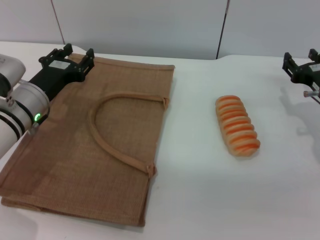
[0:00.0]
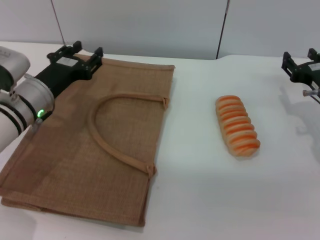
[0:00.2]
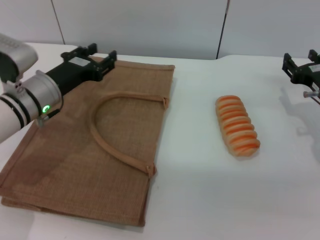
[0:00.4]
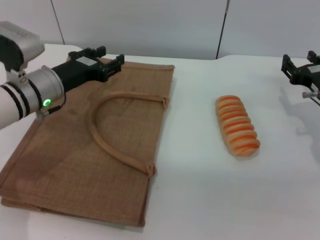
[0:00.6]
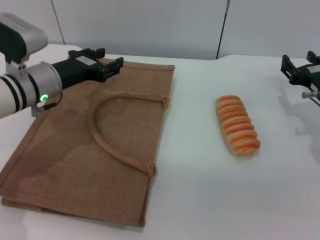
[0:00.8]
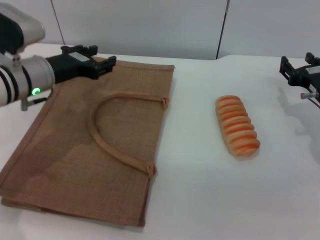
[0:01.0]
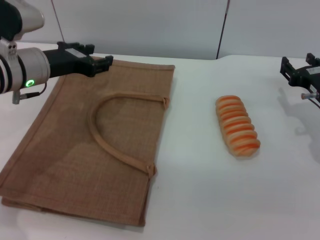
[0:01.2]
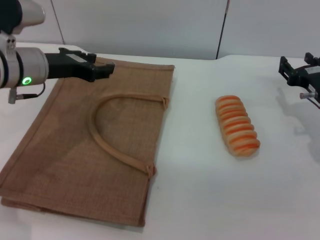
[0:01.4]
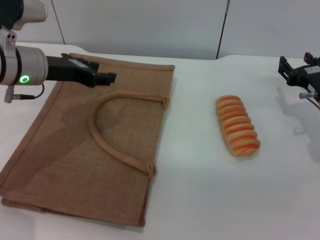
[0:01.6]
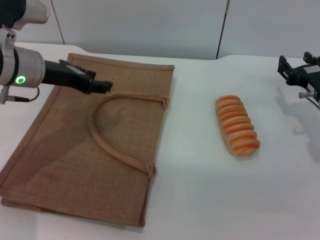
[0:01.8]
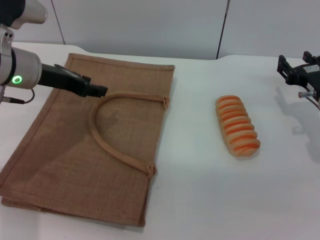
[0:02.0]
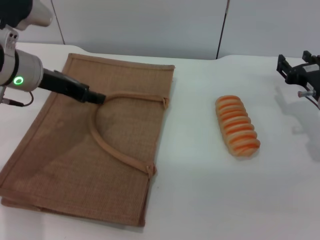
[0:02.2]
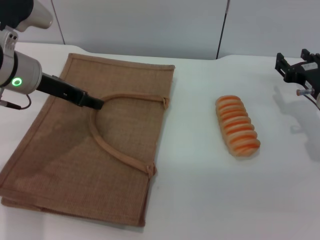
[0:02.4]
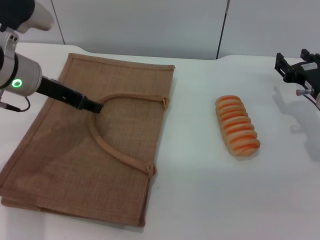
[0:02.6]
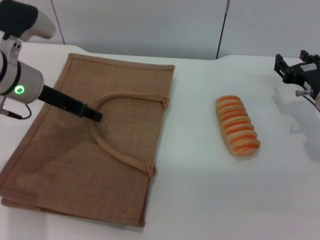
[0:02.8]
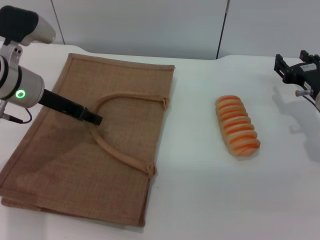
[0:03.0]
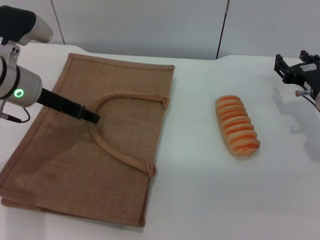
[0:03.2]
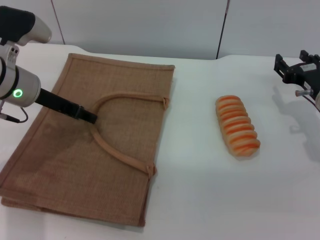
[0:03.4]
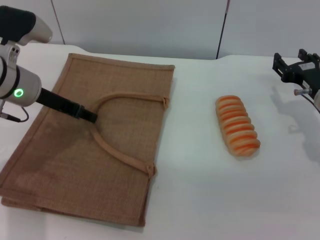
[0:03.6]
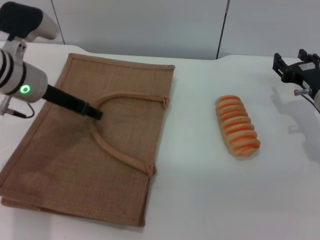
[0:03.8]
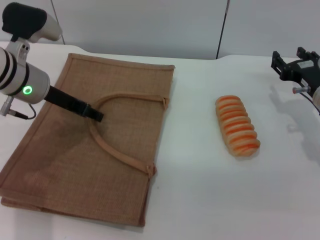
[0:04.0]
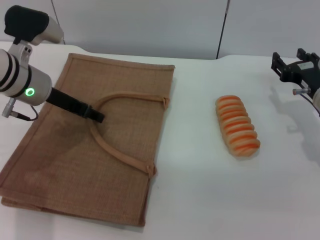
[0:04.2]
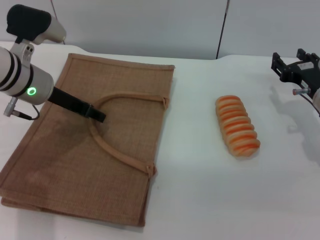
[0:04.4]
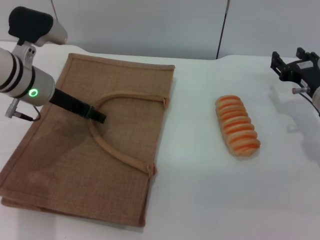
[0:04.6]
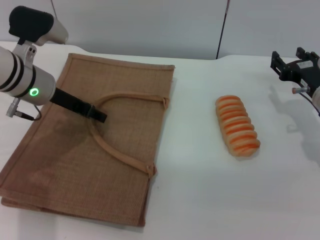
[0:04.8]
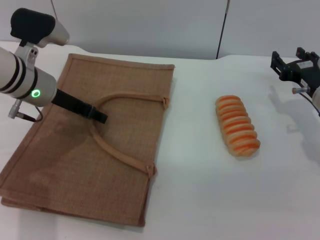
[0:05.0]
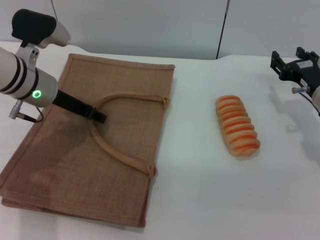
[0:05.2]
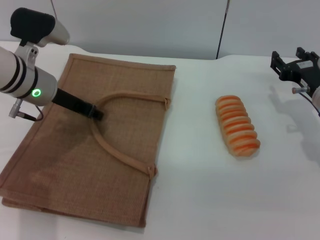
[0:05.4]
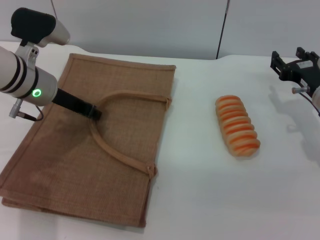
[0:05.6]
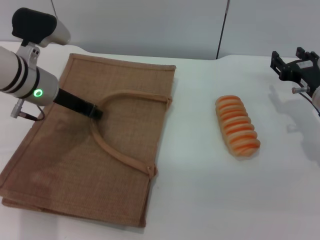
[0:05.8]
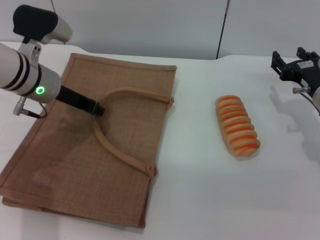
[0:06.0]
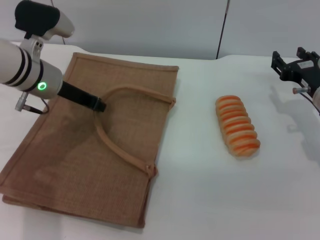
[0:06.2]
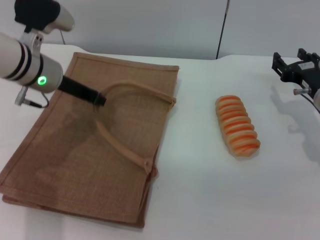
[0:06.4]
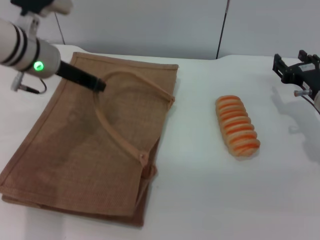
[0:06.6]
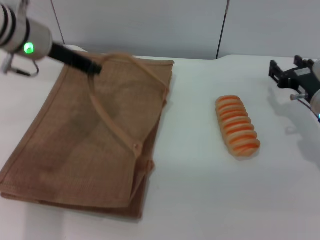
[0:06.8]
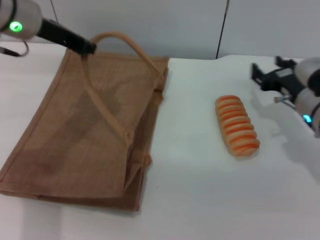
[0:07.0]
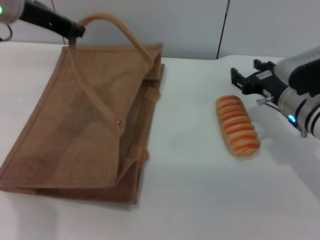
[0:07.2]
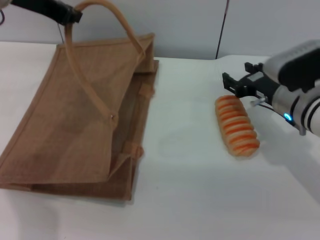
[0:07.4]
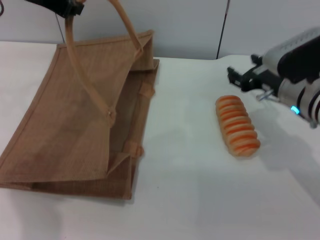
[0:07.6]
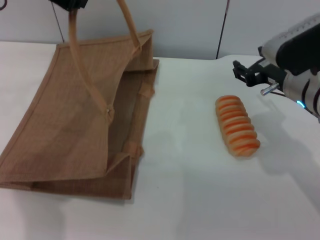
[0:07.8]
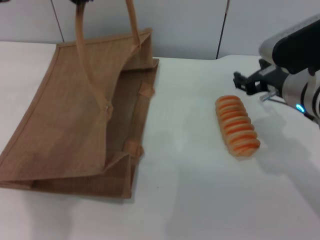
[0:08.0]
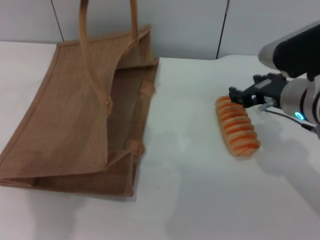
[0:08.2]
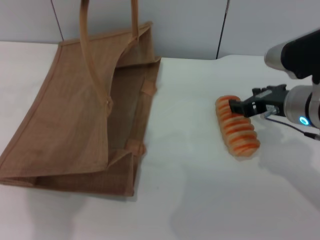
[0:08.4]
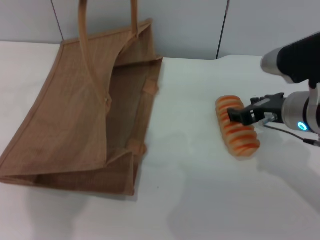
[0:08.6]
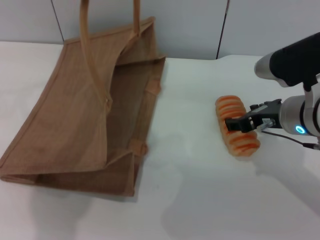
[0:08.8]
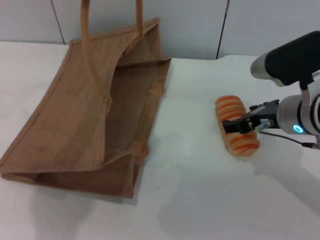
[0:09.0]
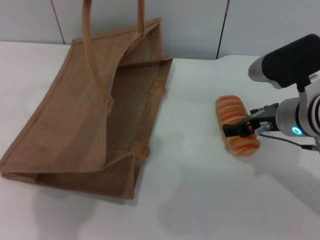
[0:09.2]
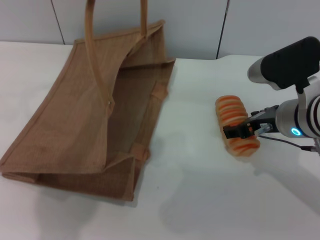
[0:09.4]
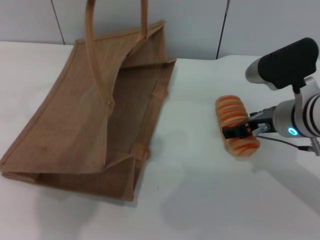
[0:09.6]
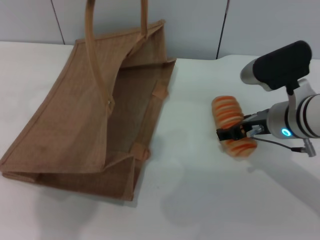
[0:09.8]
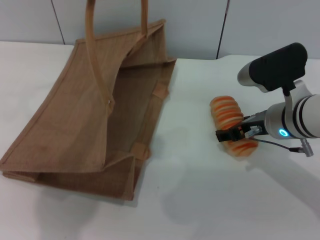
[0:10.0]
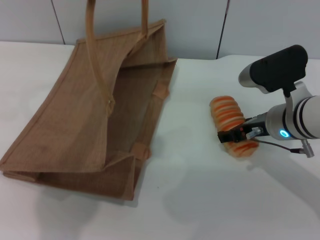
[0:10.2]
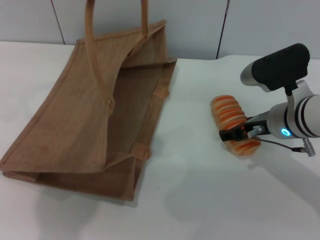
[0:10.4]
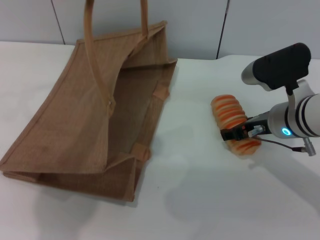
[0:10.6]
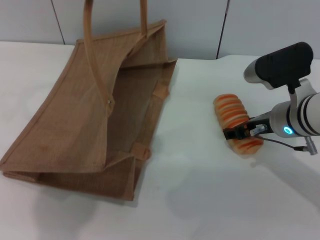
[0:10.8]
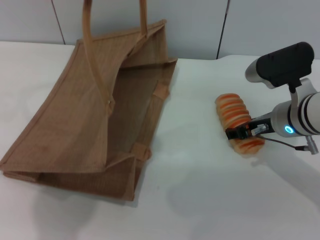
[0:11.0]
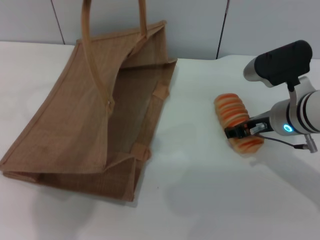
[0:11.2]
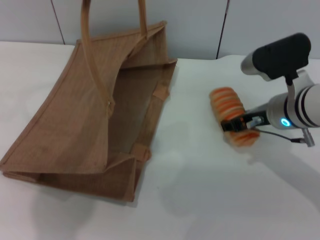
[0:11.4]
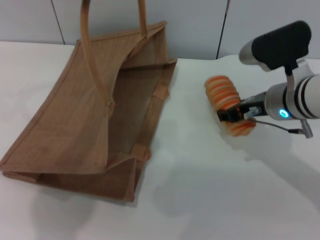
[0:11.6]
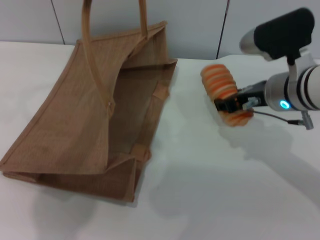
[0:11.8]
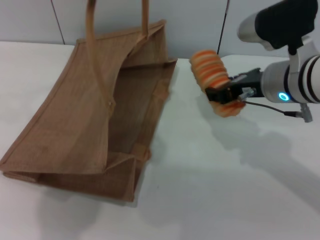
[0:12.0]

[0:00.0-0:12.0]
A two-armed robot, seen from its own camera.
Task of the whole recording: pick up the bread from the table and place it in the brown handbag.
Step, 0:00.0 to 0:06.8: Lift the woven bag with the left gripper to open it.
Step, 0:07.0 to 0:11.8: Pick up the bread with the right gripper.
0:00.0 to 0:01.6: The left gripper moves upward, some 10 cm.
0:03.0 to 0:04.4: The grippers make only small movements.
0:04.4 to 0:06.0: The left gripper closes its fingers.
0:06.0 to 0:07.6: The left gripper shifts roughly 15 cm upward. The right gripper heads to the left and upward, covering approximately 10 cm.
0:07.6 to 0:09.0: The left gripper ends up about 5 cm from where it was.
0:09.0 to 0:10.4: The grippers move only a little.
0:10.4 to 0:12.0: The right gripper is displaced upward by about 5 cm, and closes its fingers.

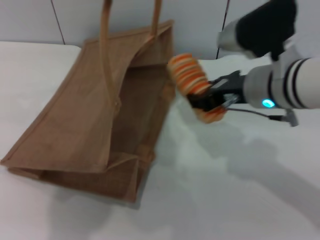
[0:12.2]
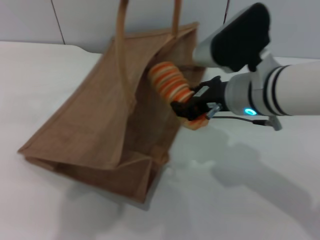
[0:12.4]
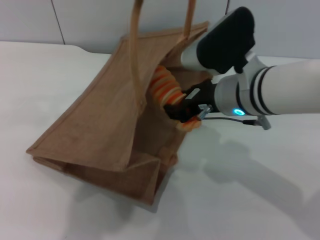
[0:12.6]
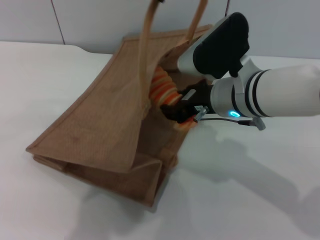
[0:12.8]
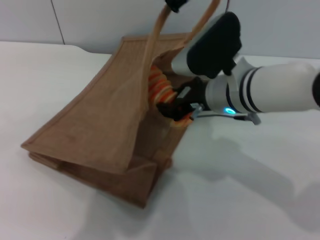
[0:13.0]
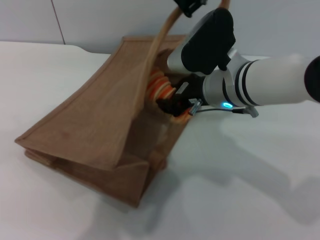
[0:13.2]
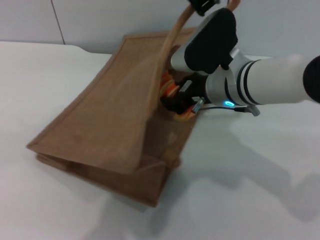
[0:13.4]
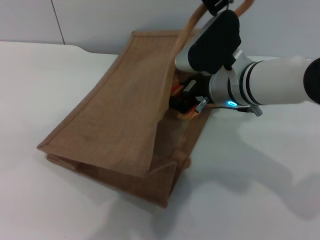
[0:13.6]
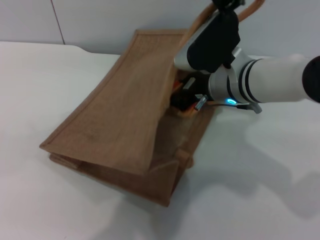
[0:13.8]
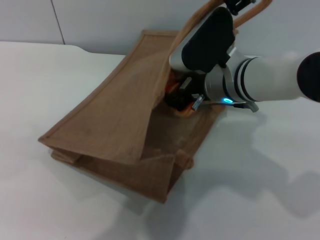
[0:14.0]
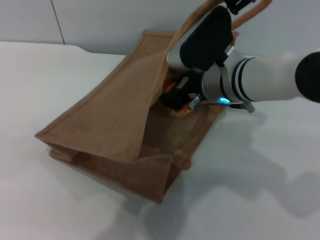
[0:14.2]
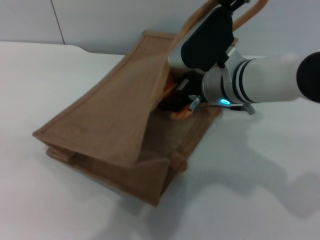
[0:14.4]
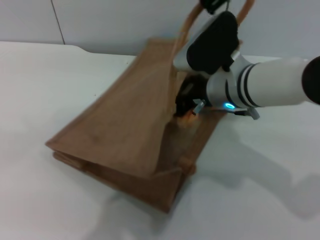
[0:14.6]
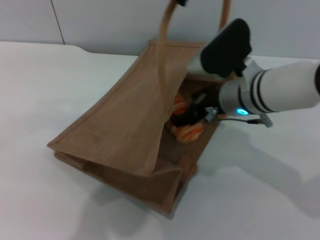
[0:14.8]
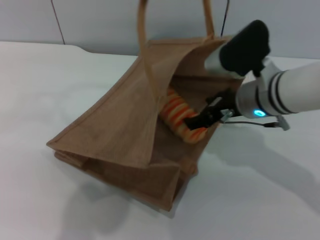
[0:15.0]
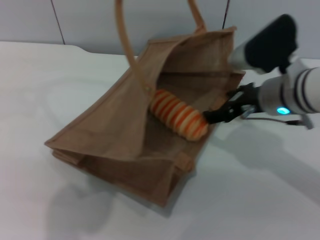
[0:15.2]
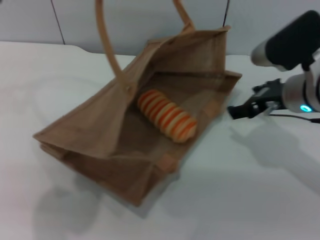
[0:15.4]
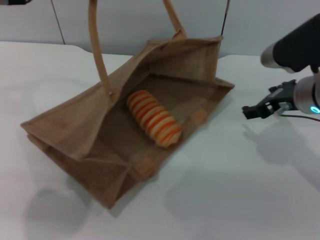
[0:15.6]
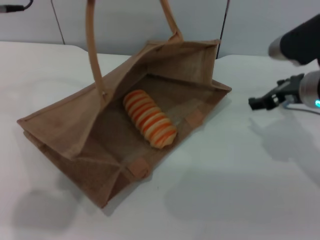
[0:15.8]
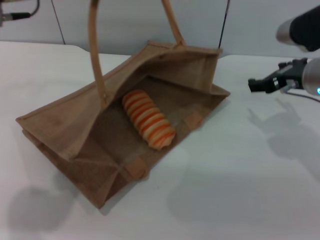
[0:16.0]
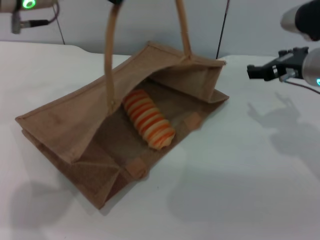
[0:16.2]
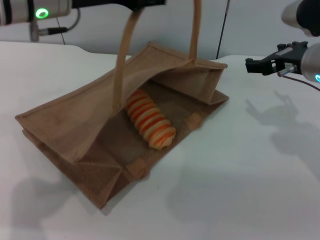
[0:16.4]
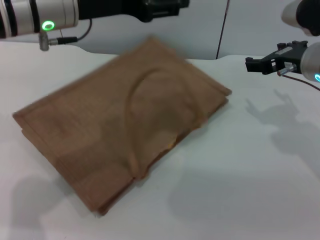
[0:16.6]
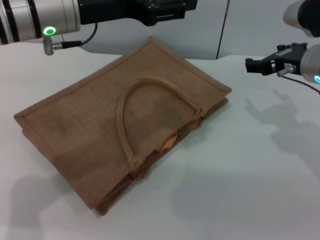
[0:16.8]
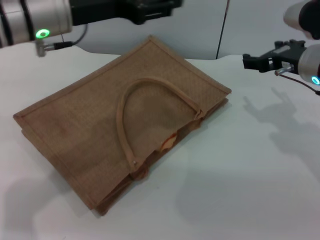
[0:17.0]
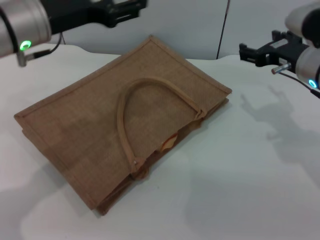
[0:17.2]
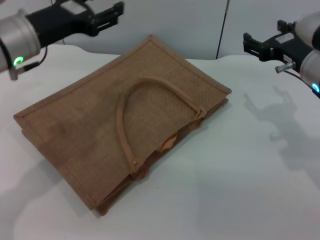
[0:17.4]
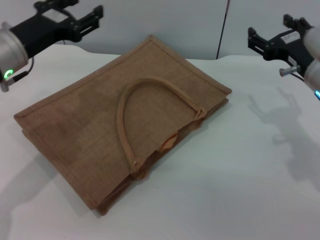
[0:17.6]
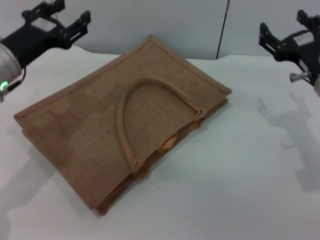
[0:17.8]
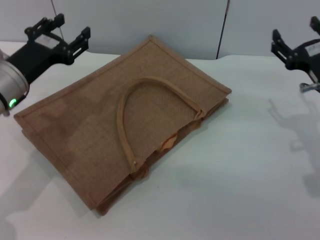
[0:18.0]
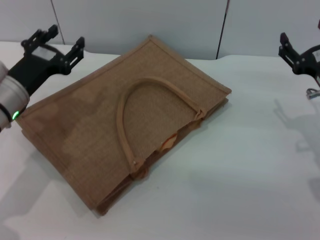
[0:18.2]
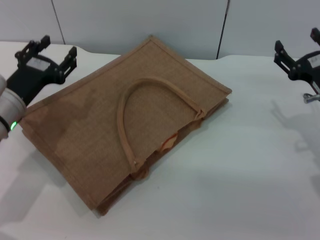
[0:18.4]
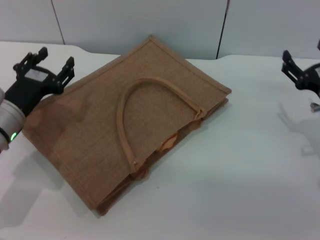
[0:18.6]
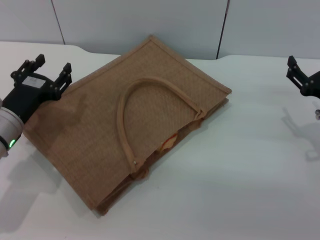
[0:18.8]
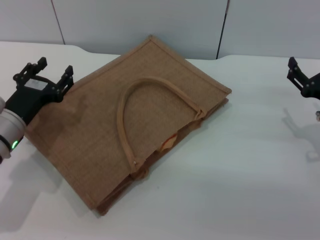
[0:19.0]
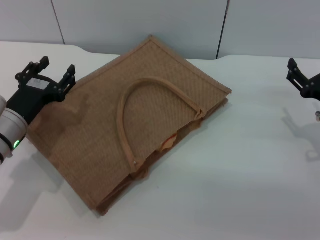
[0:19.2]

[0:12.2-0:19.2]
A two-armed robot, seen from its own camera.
Task of the whole recording: pick up the bread from the table and place it in the brown handbag.
Step, 0:12.2 to 0:15.2: Place the bread into the woven bag with the right gripper.
Step, 0:15.4 to 0:17.4: Lower the woven bag with the left gripper to close it.
0:12.2 to 0:13.6: The right gripper changes place by about 5 cm. Meanwhile the left gripper heads to the right, covering about 10 cm.
0:13.6 to 0:15.0: The right gripper opens up. The left gripper travels to the left by about 10 cm.
0:15.0 to 0:16.4: The left gripper is displaced downward and to the left by some 10 cm, and opens up. Meanwhile the right gripper goes approximately 5 cm to the right.
0:16.4 to 0:17.8: The right gripper moves about 5 cm; the left gripper travels downward and to the left by some 15 cm.
0:17.8 to 0:19.2: The right gripper travels downward and to the right by approximately 10 cm, while the left gripper goes some 10 cm downward.
